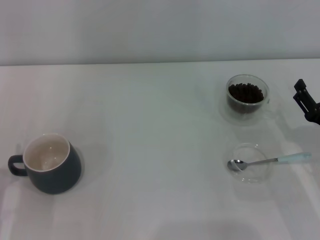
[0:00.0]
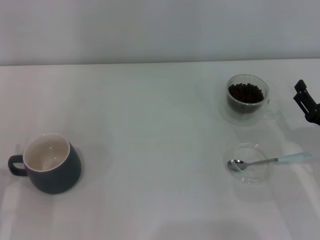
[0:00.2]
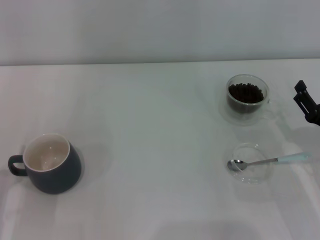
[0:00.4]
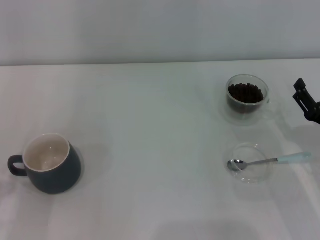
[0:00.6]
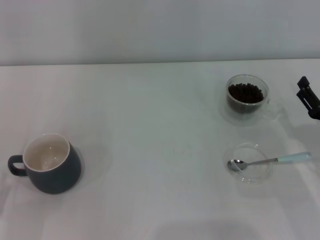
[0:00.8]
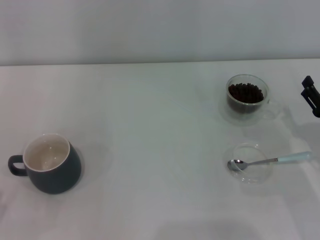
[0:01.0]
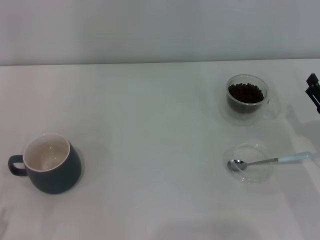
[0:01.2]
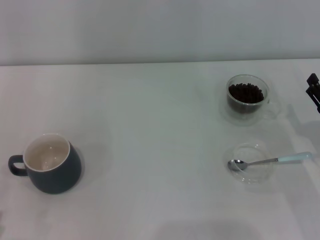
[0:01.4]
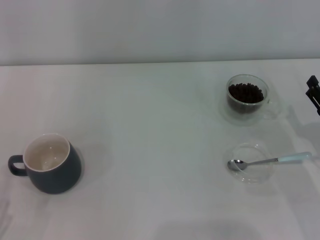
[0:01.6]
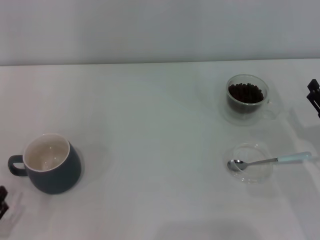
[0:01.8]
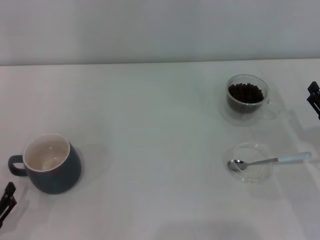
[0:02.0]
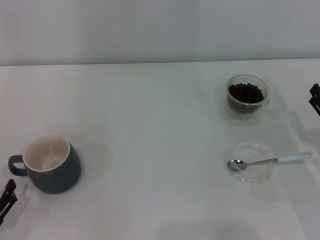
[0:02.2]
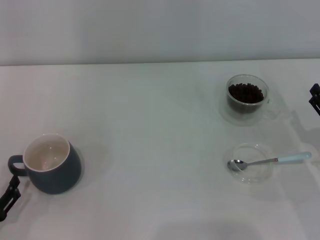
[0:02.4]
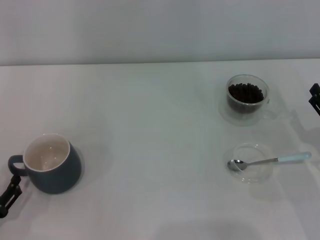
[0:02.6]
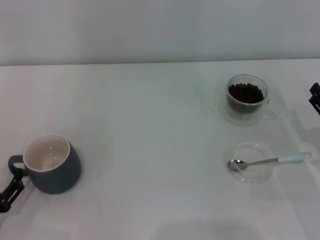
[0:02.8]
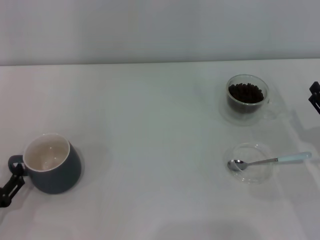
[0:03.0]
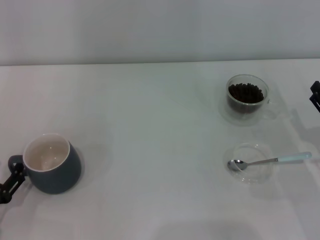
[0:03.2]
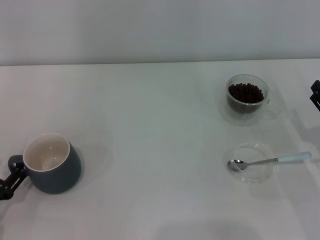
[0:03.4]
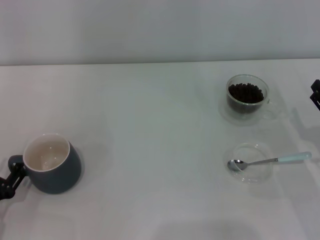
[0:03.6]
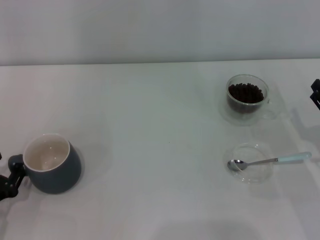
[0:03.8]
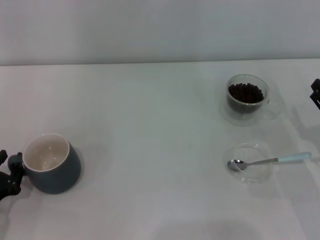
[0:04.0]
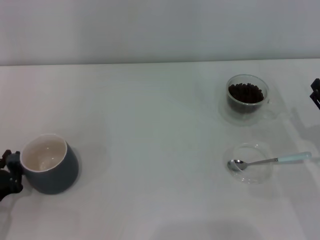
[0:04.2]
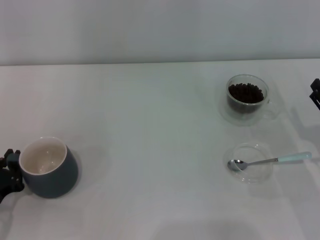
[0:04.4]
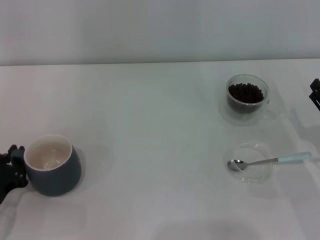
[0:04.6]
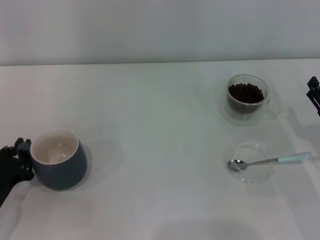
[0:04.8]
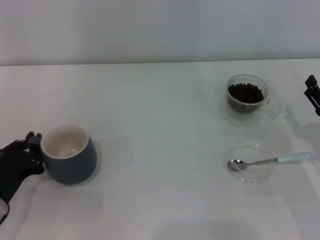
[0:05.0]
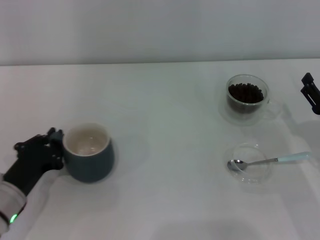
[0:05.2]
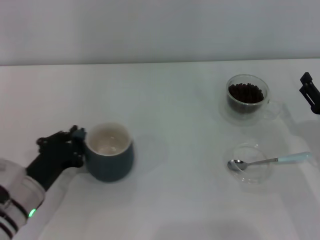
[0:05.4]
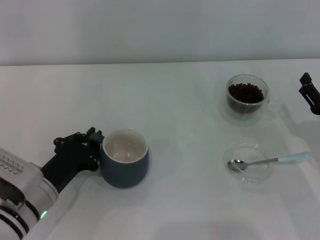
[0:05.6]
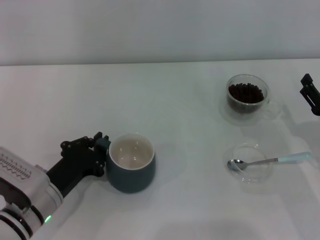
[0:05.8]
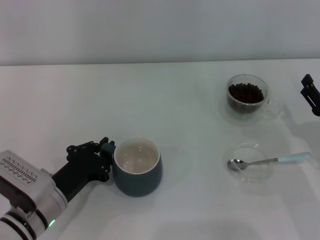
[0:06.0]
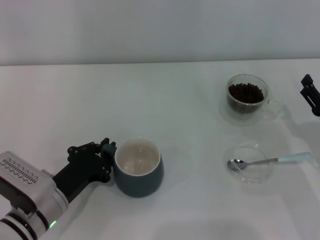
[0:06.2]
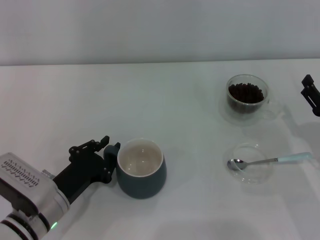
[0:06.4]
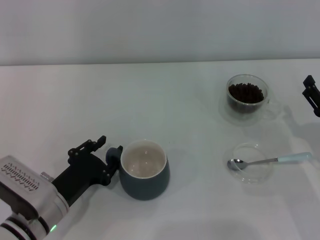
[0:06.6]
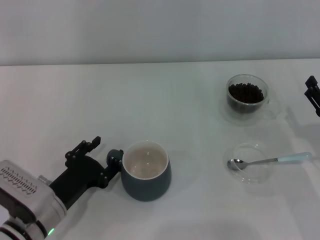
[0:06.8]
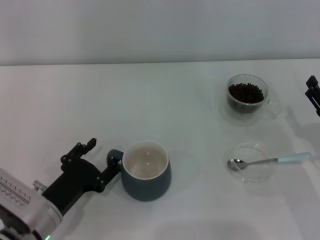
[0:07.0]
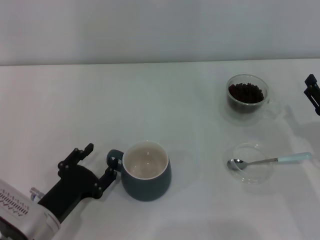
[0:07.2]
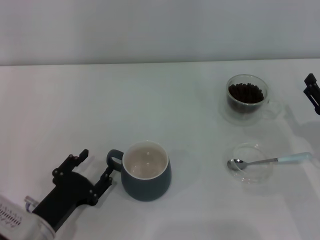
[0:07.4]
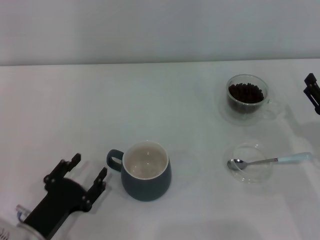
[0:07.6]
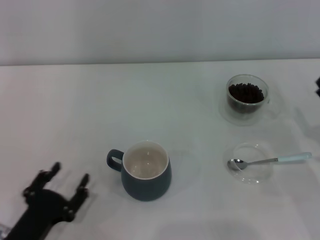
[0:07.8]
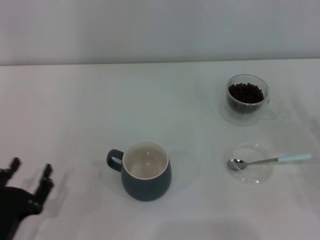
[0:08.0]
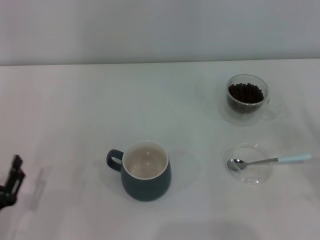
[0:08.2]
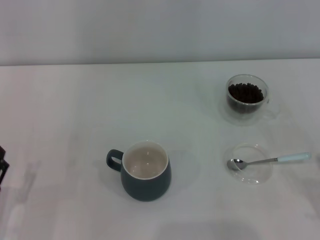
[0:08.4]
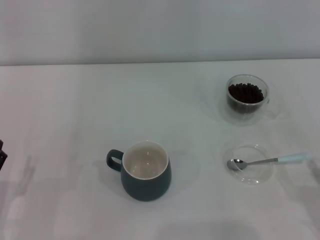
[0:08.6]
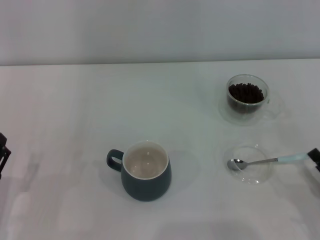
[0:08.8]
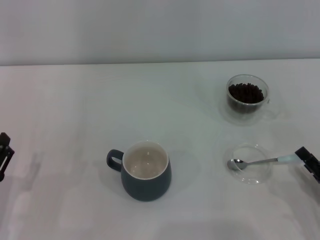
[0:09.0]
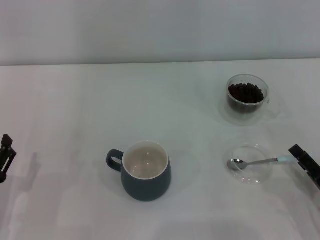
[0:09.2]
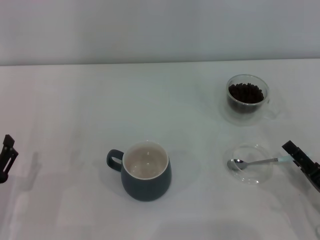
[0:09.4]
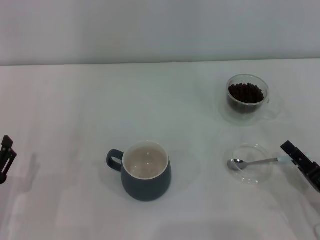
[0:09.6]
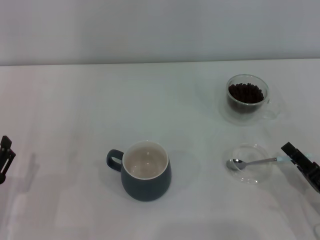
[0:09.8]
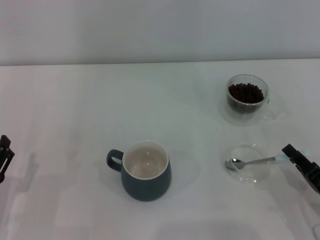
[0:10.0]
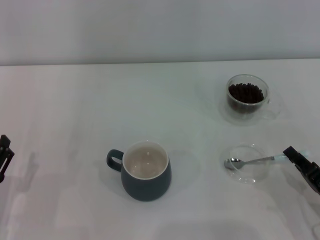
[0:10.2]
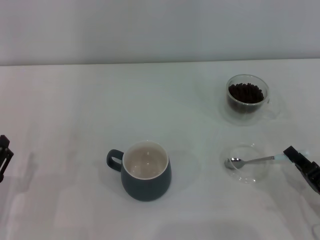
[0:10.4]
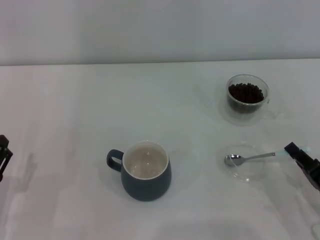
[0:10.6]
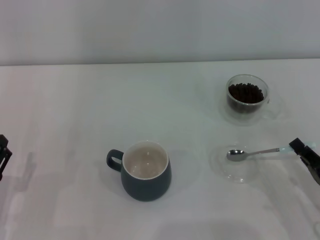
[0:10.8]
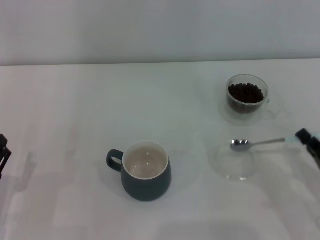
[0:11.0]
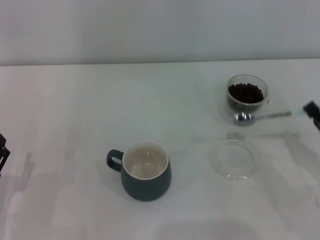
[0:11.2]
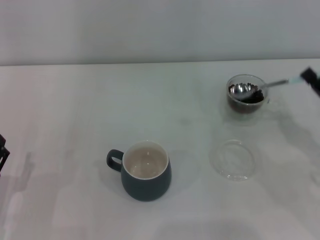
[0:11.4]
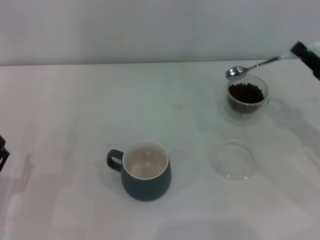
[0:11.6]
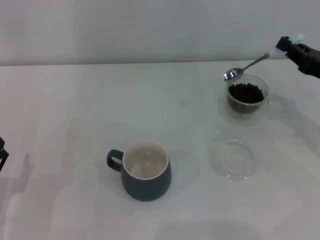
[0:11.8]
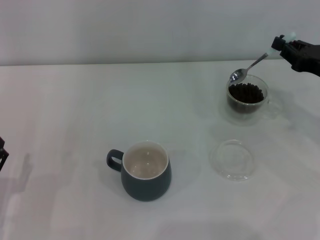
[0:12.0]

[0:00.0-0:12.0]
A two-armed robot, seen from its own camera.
Task of the whole recording: Use a blue spoon to take out the coffee beans from the glass and pour them into the gray cup.
Step, 0:00.0 to 0:07.4: Move the cup to the center of view with the left gripper.
Step, 0:07.8 to 0:11.0: Pick up the spoon with the right gripper.
0:01.6 to 0:03.0: The left gripper shifts roughly 10 cm forward.
0:03.0 to 0:04.4: The left gripper closes its fingers.
0:04.4 to 0:06.0: The left gripper is displaced to the right by roughly 10 cm.
0:06.0 to 0:07.6: The left gripper shifts some 5 cm backward, and opens its fingers.
0:07.6 to 0:09.0: The left gripper moves to the left, about 5 cm; the right gripper travels backward by approximately 10 cm.
0:09.0 to 0:10.4: The right gripper closes.
0:10.4 to 0:12.0: The right gripper travels forward and upward by some 20 cm.

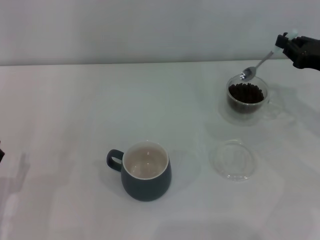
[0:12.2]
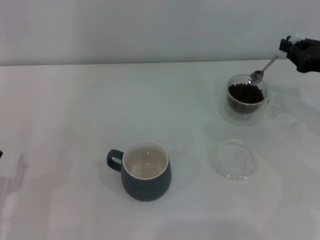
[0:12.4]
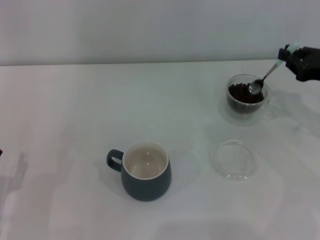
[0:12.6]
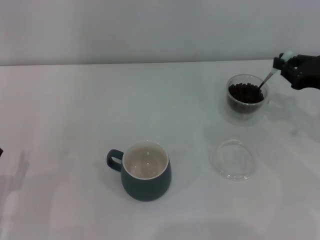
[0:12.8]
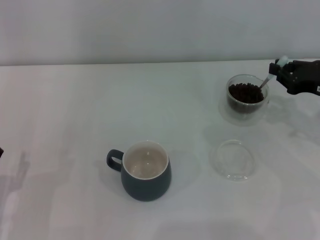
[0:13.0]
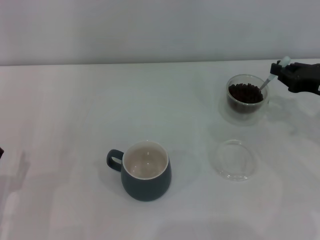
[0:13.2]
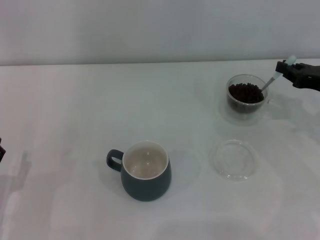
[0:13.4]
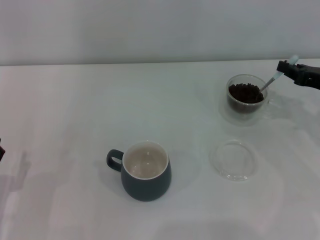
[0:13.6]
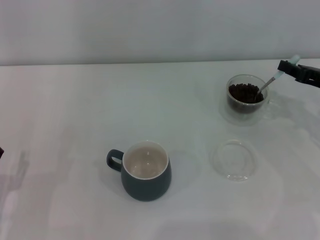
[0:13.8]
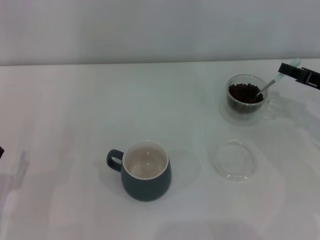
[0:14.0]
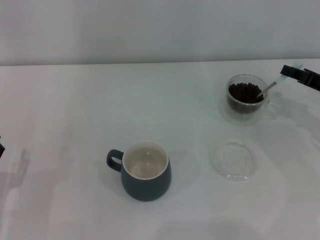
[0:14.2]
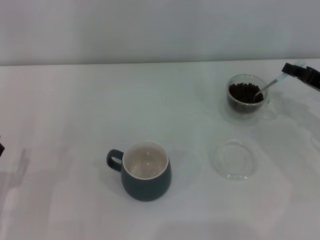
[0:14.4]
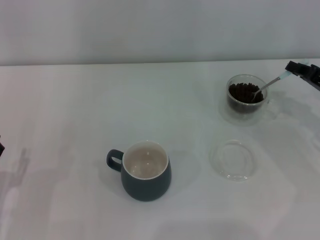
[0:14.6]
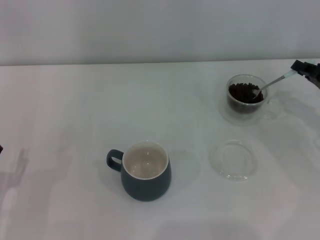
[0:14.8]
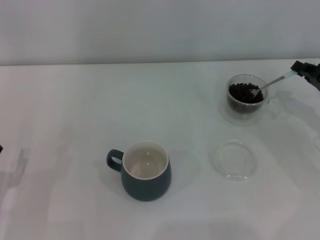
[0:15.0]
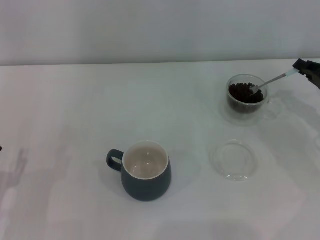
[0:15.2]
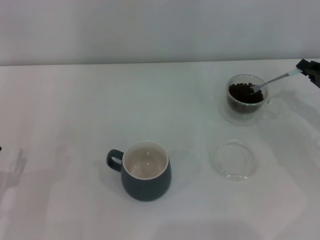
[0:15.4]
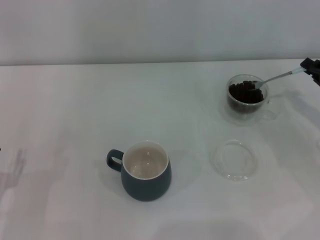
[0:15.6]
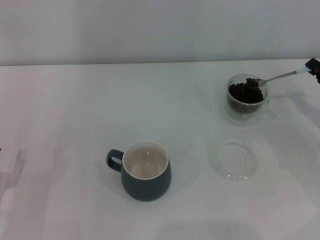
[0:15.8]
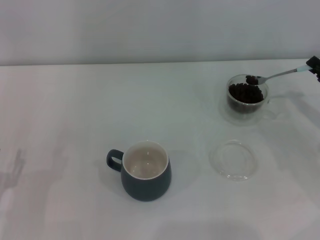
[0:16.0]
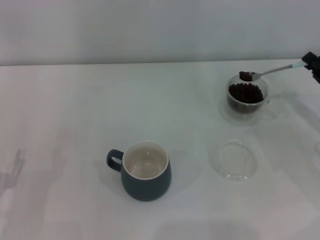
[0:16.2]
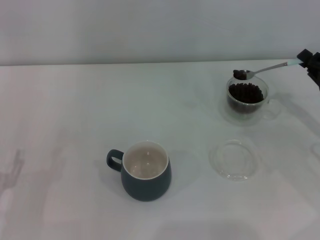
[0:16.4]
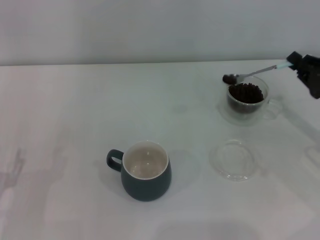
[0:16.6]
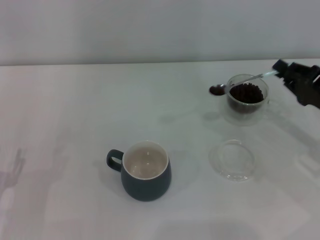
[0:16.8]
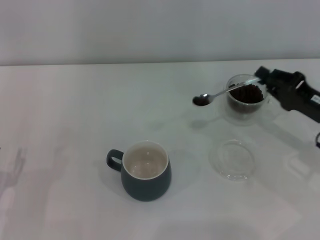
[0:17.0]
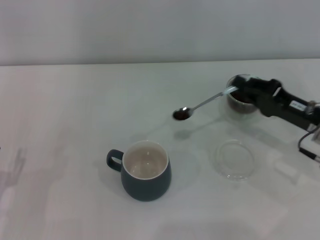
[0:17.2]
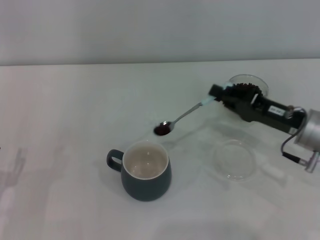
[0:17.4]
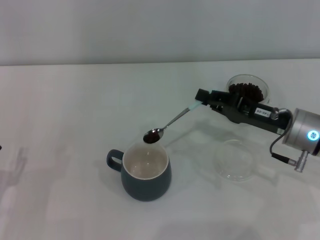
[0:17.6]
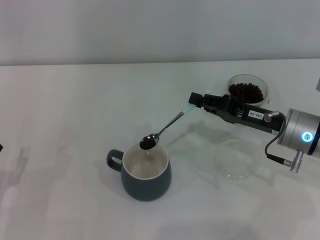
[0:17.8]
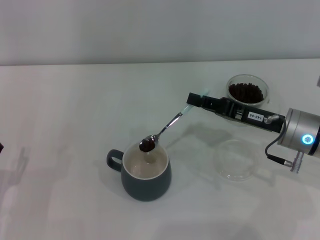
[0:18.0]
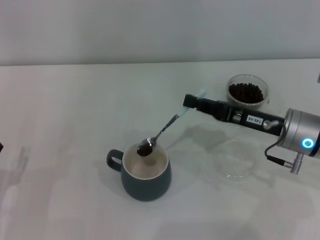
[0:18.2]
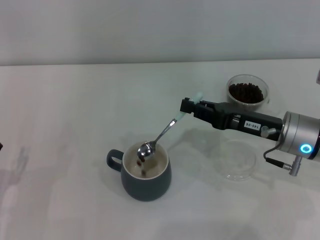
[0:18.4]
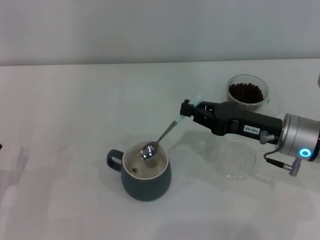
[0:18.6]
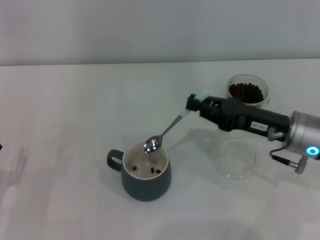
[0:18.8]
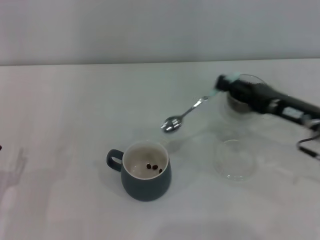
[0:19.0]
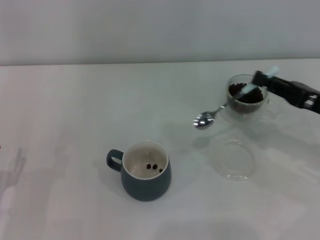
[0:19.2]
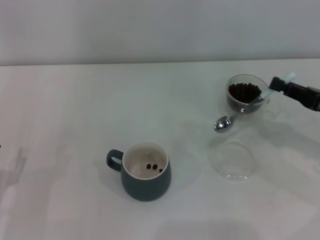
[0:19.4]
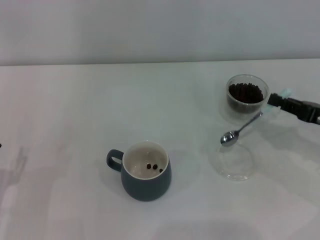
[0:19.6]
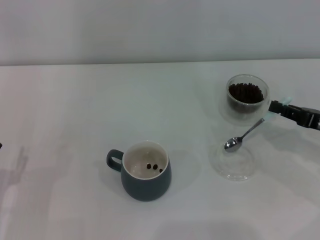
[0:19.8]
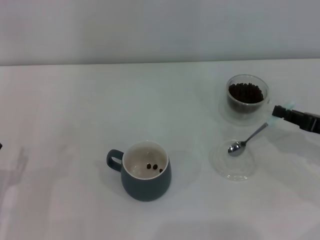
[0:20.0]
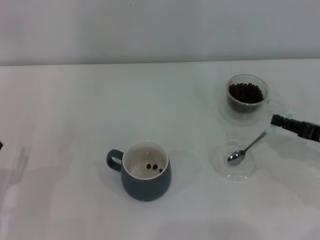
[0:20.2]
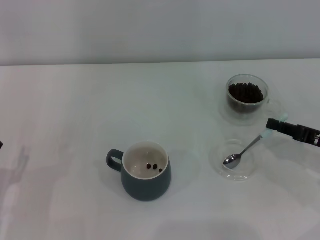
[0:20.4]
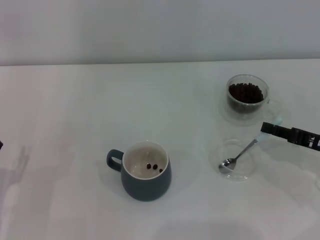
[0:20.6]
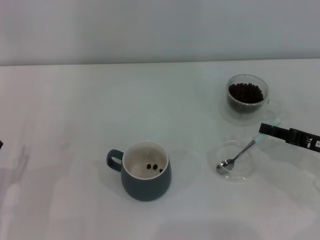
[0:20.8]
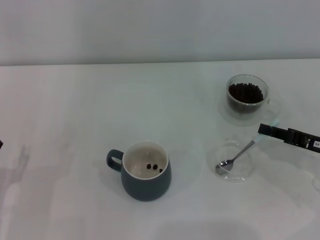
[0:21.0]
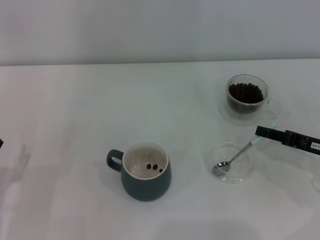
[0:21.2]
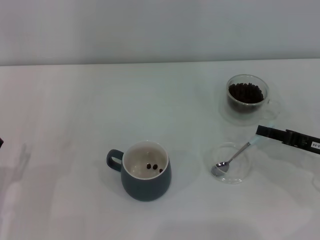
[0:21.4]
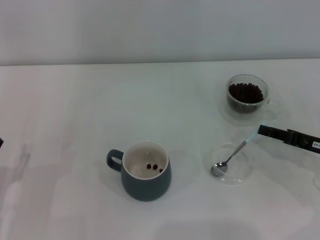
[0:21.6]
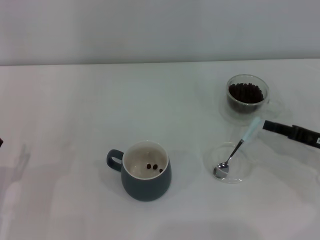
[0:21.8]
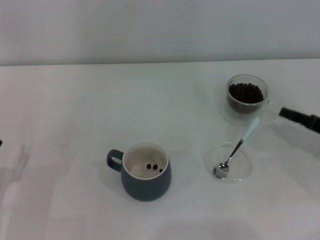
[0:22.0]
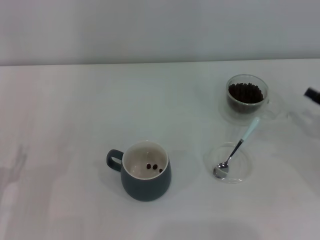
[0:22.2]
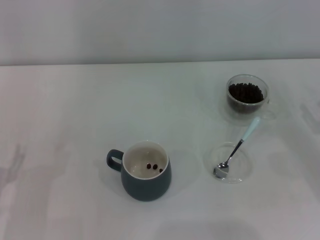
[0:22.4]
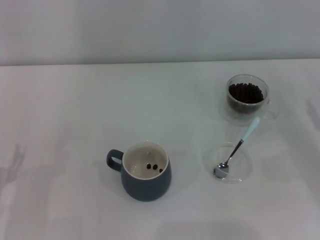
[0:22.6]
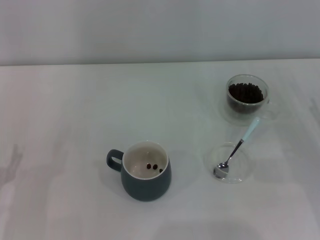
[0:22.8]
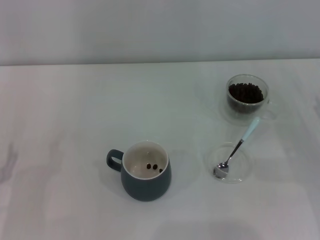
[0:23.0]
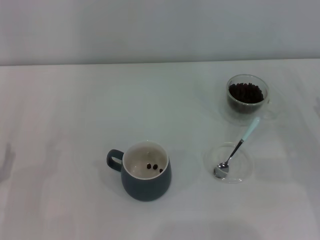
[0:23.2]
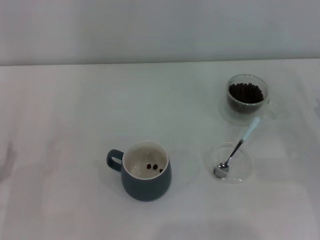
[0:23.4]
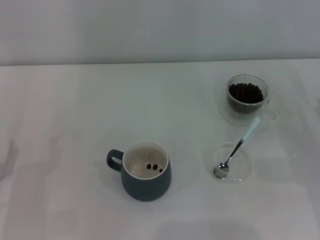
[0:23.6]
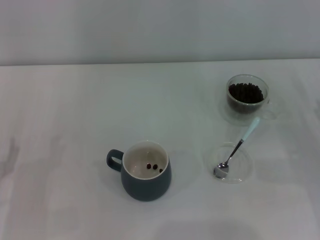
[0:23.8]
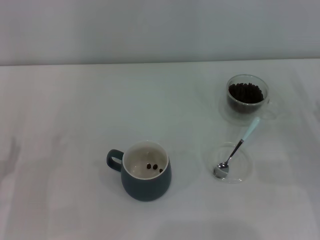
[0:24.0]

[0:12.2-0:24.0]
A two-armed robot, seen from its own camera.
Task of the whole recording: Use a blue spoon to take out the coffee beans from the glass and pour them into the gray cup.
Step, 0:12.2 to 0:18.8: Scoop a spoonful of beans into the cup with the right gripper.
Step, 0:19.0 to 0:21.8: Place the spoon back in its original place with the right gripper.
0:12.2 to 0:13.6: The grippers move only a little.
0:15.2 to 0:16.6: The grippers make only small movements.
0:16.6 to 0:18.2: The right gripper travels to the left by some 10 cm.
0:18.2 to 0:19.6: The right gripper shifts about 10 cm to the right.
0:19.6 to 0:21.0: The grippers move only a little.
0:21.0 to 0:22.6: The right gripper opens its fingers.
